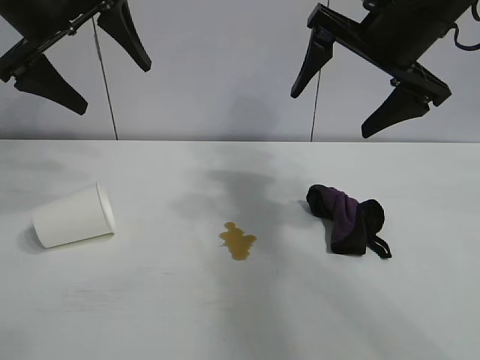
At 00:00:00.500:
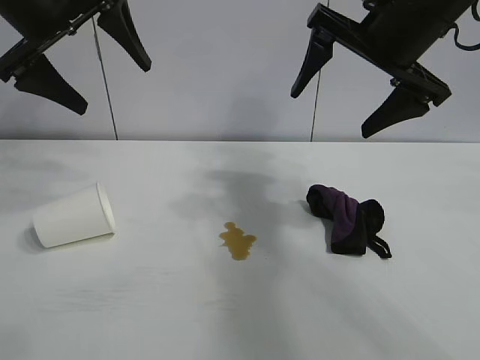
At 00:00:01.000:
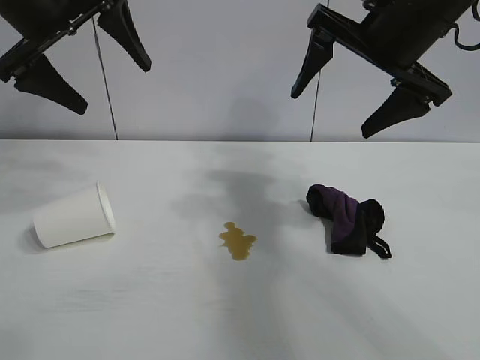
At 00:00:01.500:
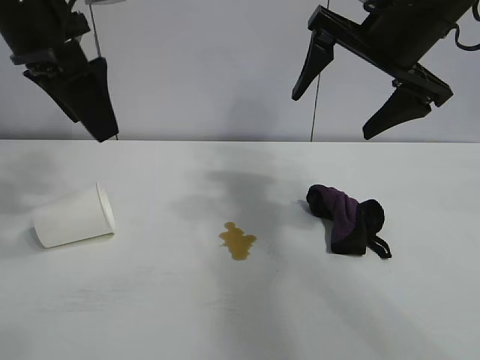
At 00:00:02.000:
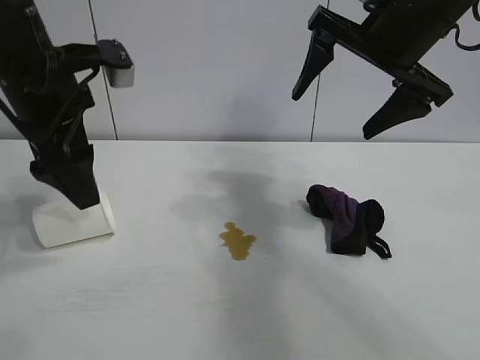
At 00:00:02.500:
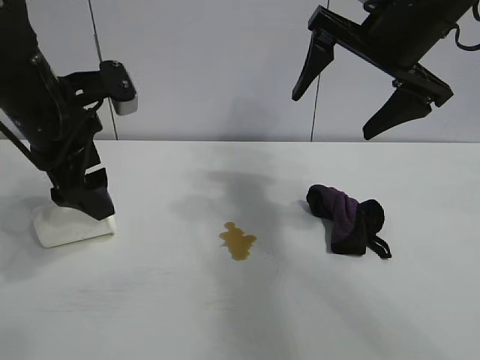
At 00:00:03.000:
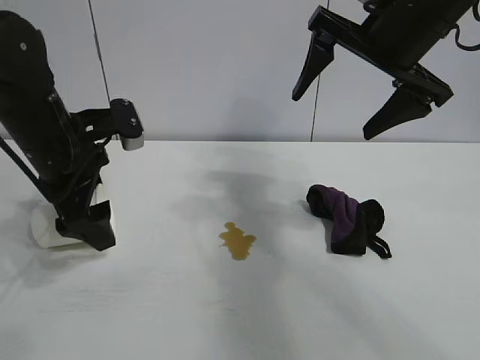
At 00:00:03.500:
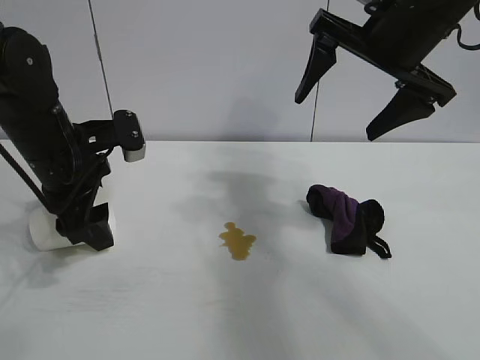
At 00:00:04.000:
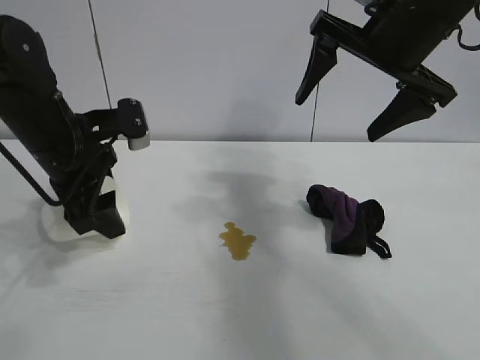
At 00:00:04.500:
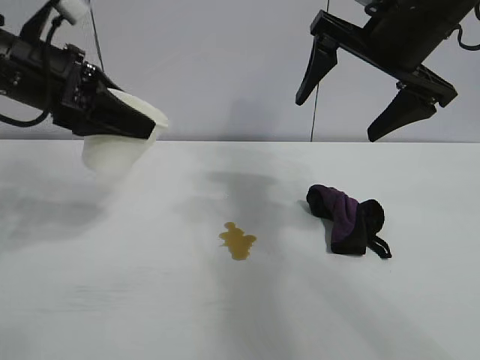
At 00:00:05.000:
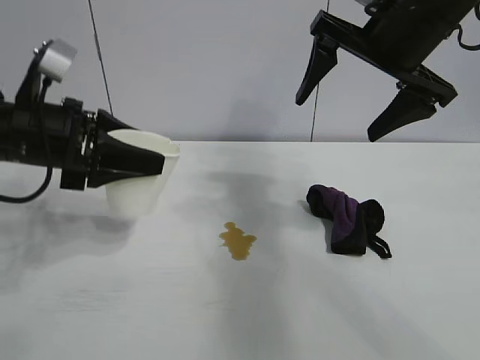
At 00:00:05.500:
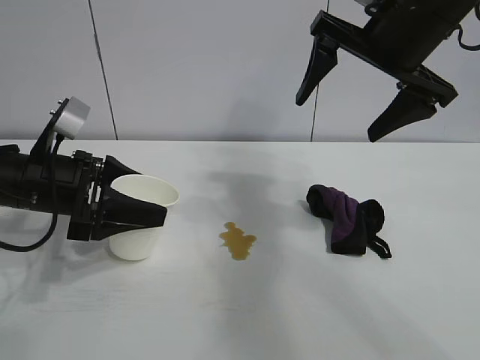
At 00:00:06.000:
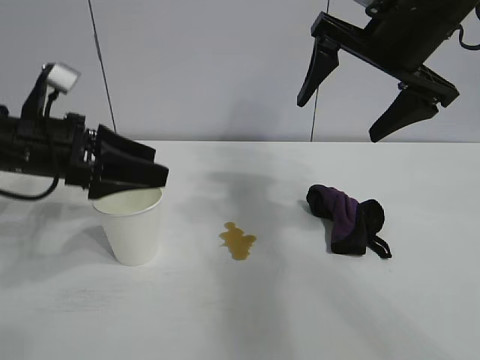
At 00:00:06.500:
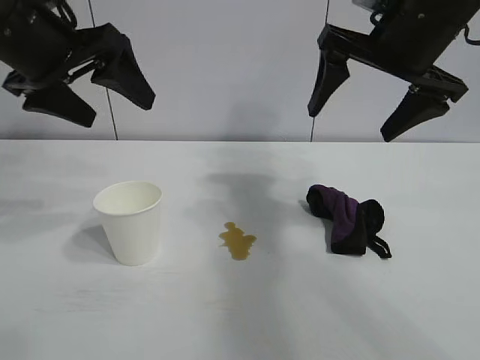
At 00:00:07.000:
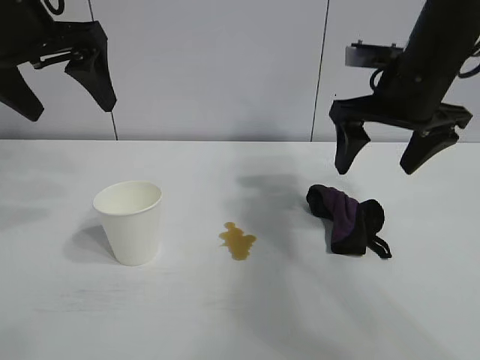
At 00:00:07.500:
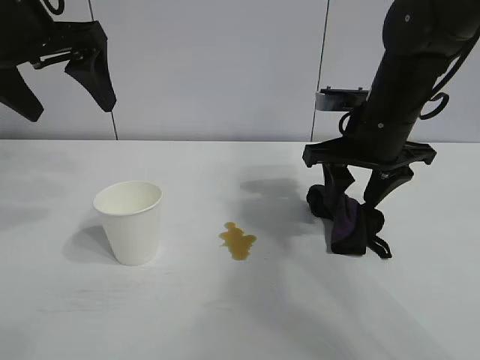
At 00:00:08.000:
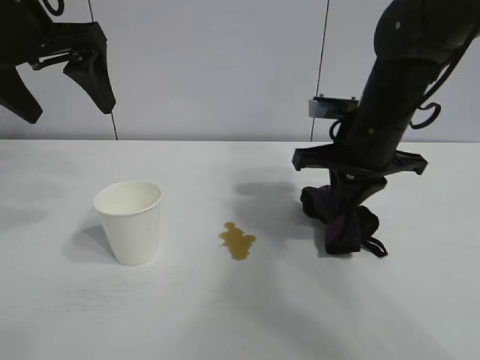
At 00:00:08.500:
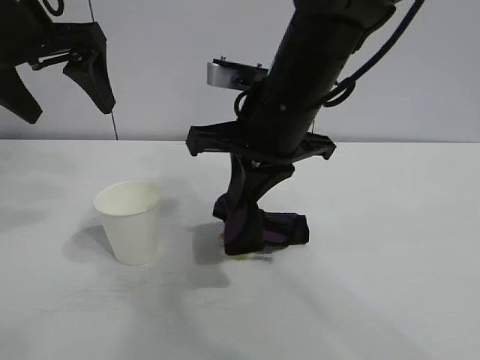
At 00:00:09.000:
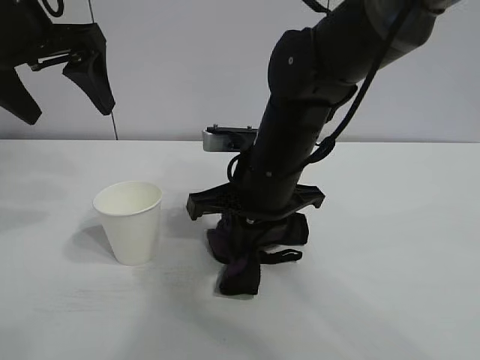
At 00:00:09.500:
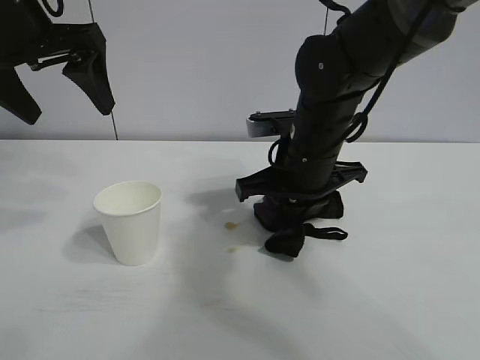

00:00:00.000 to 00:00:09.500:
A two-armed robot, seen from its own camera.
Task of the whole recording: the left gripper pick up the fallen cup and place it upright, the right gripper grasp the black rag and wipe the stain on the table, the right gripper put the black rag back in its original position.
Step, 00:00:01.500 to 00:00:03.500: Grasp the paper cup with left gripper.
Step, 00:00:04.000 to 00:00:05.500: Stand the paper cup upright with left gripper.
Step, 00:00:06.000 to 00:00:07.500: Grasp the rag with right gripper.
